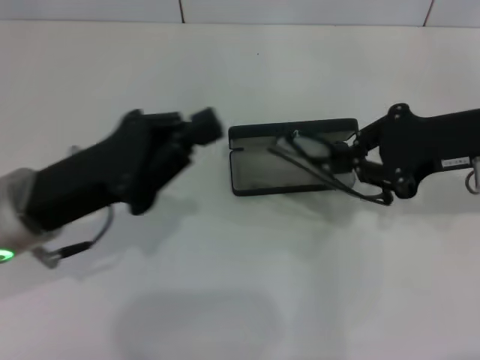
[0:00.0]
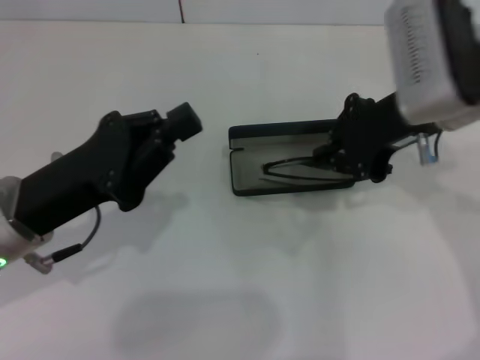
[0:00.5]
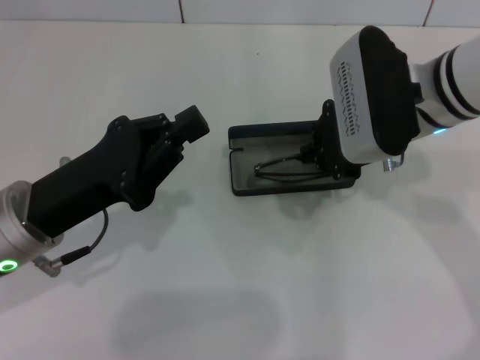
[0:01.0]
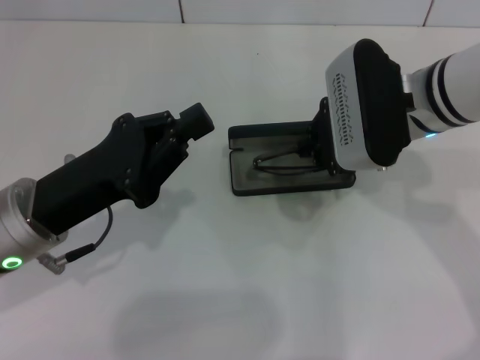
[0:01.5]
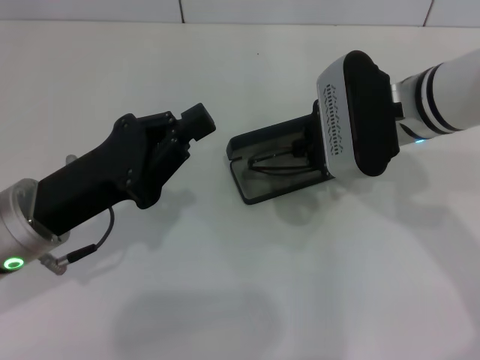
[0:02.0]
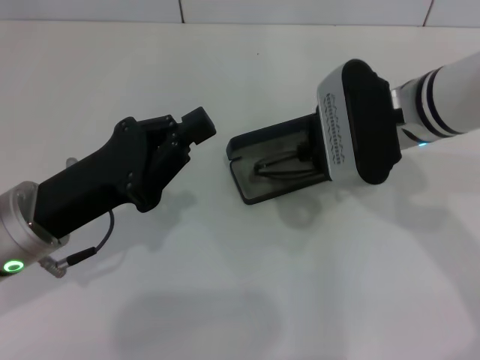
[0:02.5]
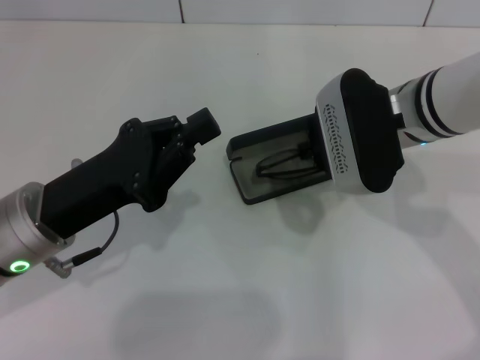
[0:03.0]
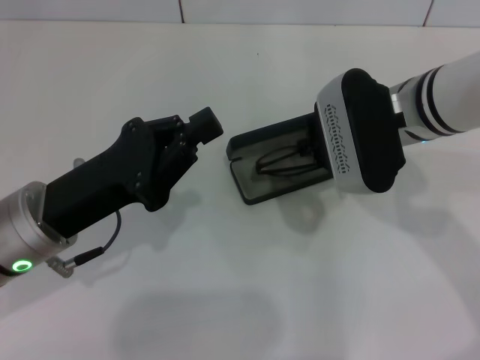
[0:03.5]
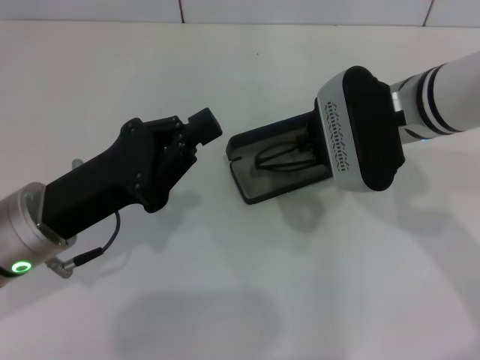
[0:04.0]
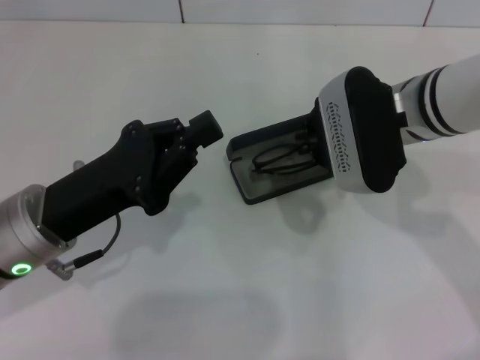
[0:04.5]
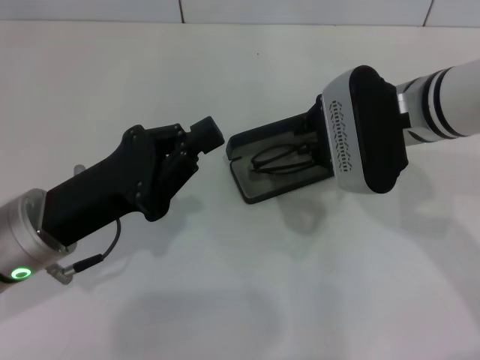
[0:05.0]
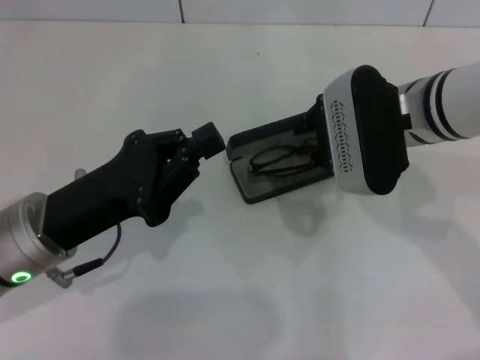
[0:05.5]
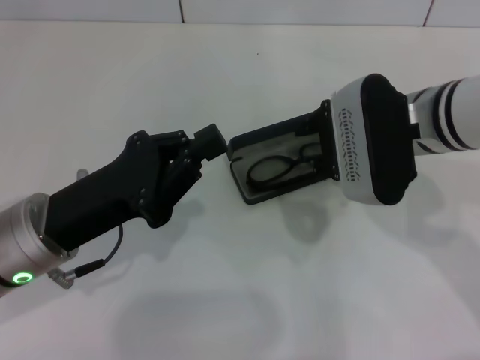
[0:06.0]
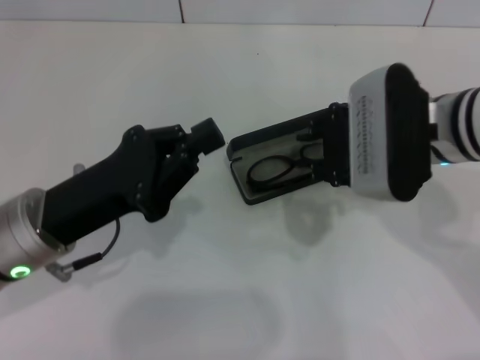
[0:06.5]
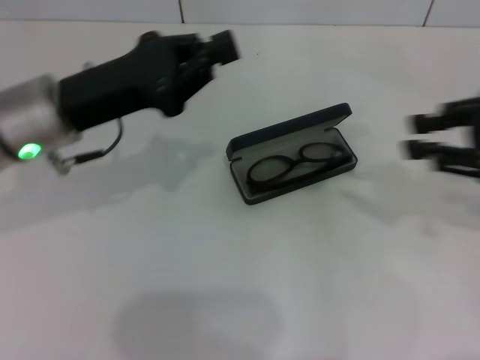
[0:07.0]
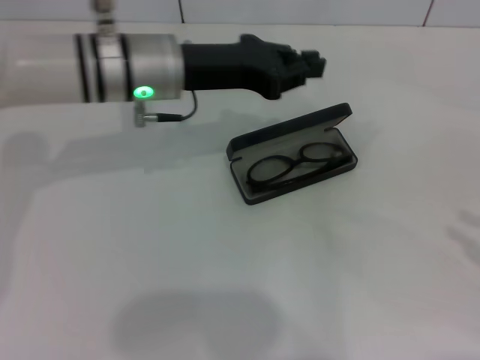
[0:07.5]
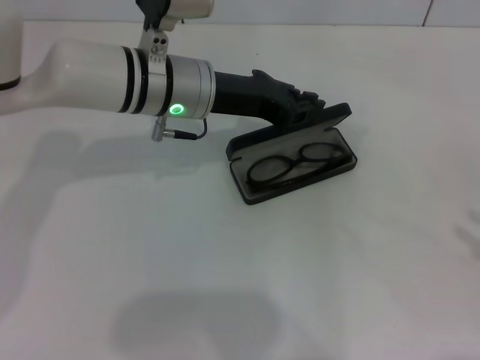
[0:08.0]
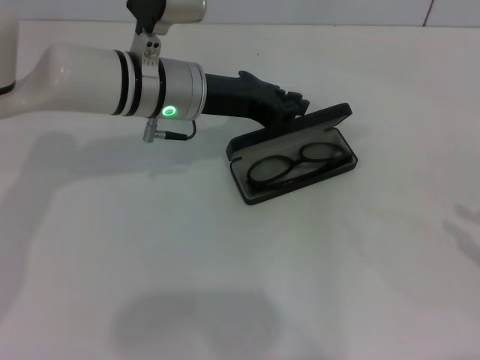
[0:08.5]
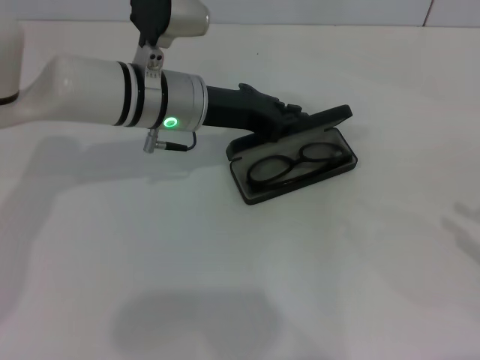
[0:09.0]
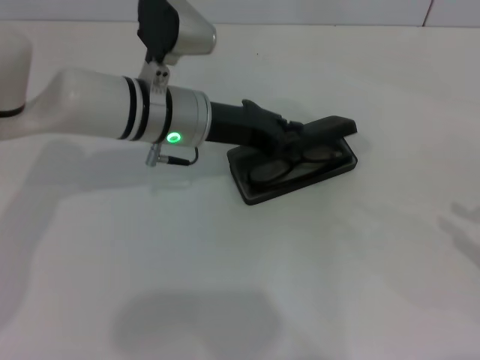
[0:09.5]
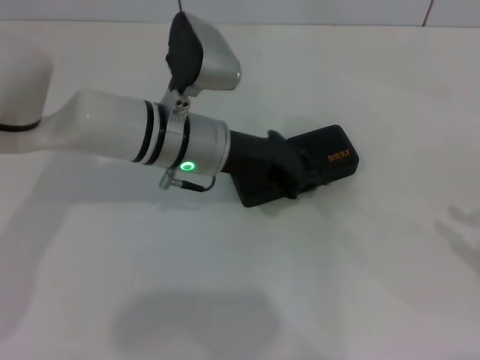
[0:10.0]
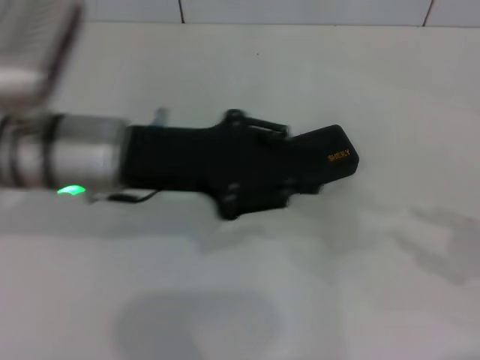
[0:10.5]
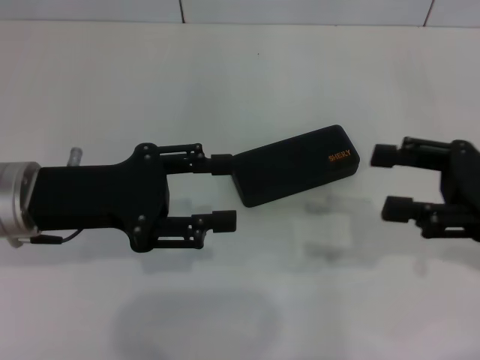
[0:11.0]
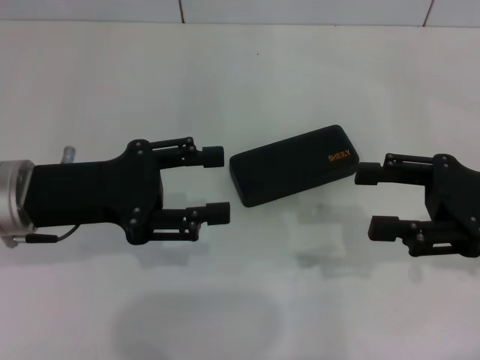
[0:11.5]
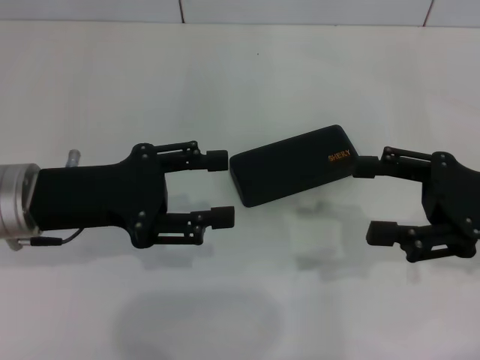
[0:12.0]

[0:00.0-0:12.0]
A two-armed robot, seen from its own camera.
Step, 0:00.0 to 0:06.0: Put the glasses into the case with your right hand.
Step, 0:06.5 to 0:10.0: Close the glasses case with your left hand.
0:00.0 to 0:02.0: The right gripper moves to the left, about 10 cm.
0:02.0 to 0:06.0: There are only small adjustments of the grippers.
0:06.0 to 0:08.0: The right gripper is displaced to the right and backward by about 35 cm. Meanwhile the left gripper goes about 20 cm forward and to the right.
0:08.0 to 0:10.0: The grippers make only small movements.
0:10.0 to 0:12.0: The right gripper travels to the left and forward by roughly 15 cm, and opens, while the left gripper travels to the left and backward by about 15 cm, and opens.
